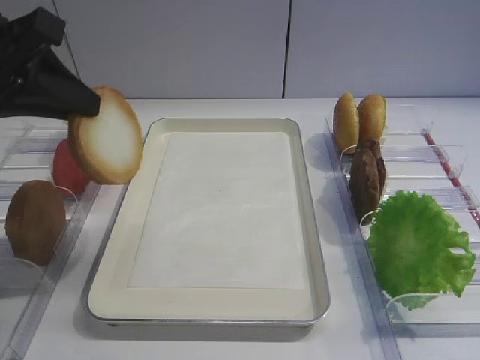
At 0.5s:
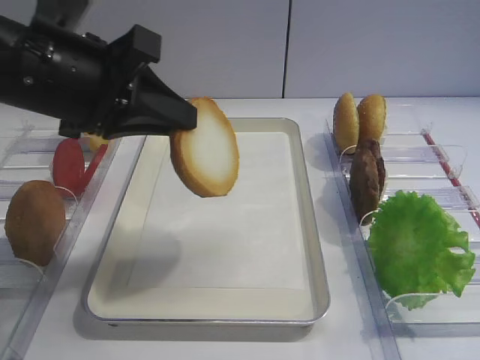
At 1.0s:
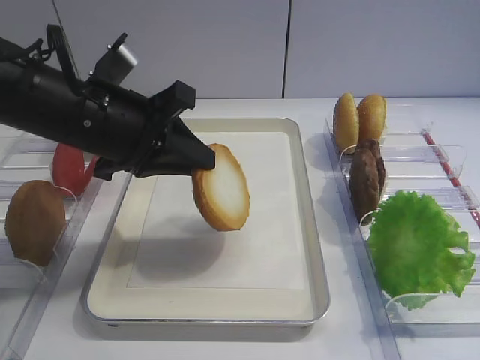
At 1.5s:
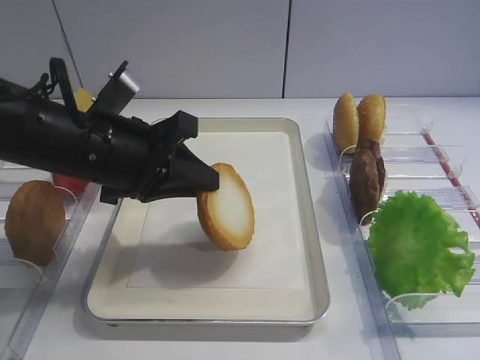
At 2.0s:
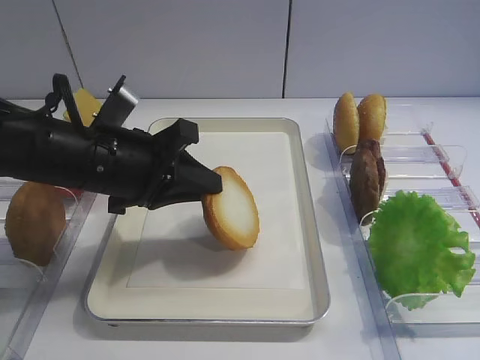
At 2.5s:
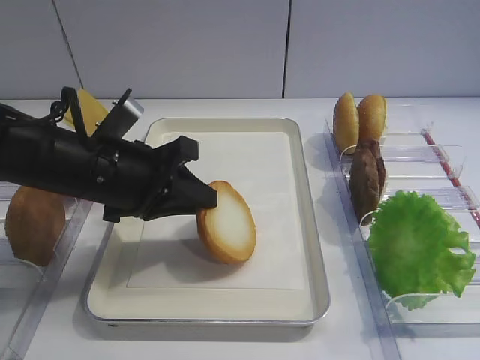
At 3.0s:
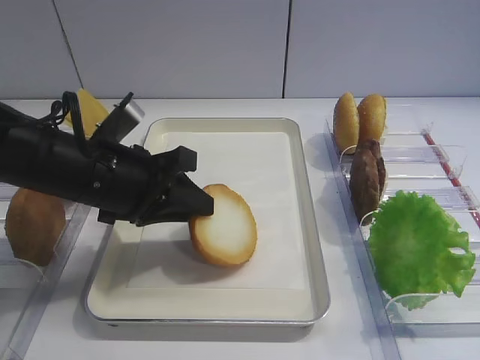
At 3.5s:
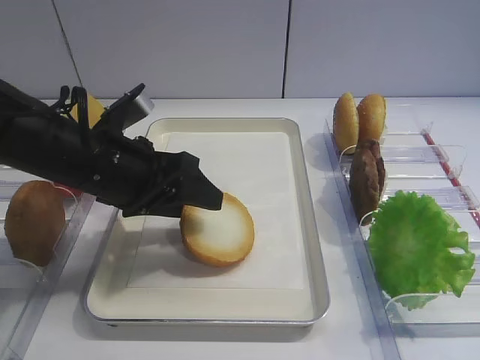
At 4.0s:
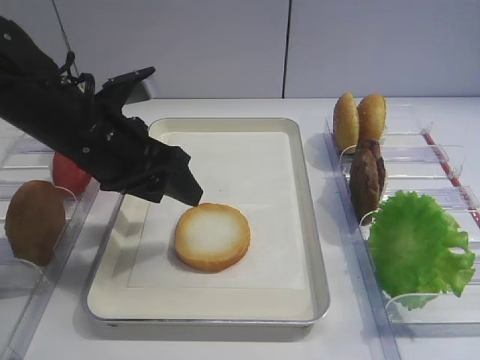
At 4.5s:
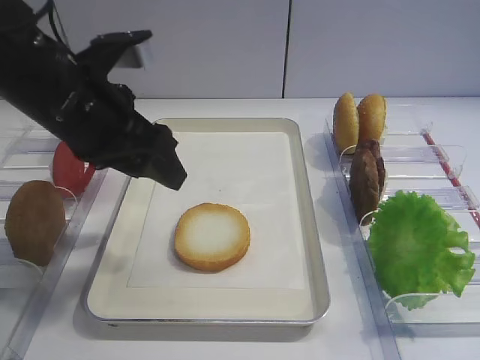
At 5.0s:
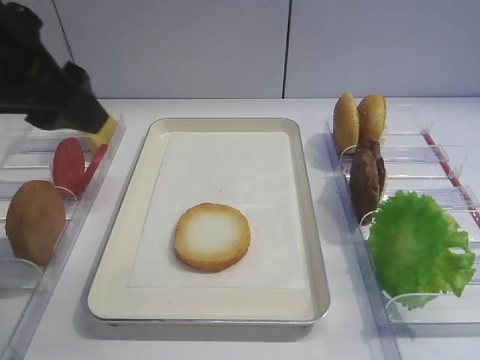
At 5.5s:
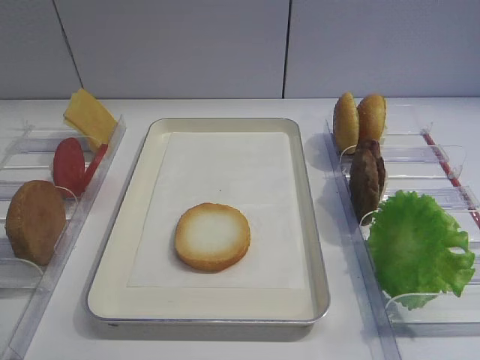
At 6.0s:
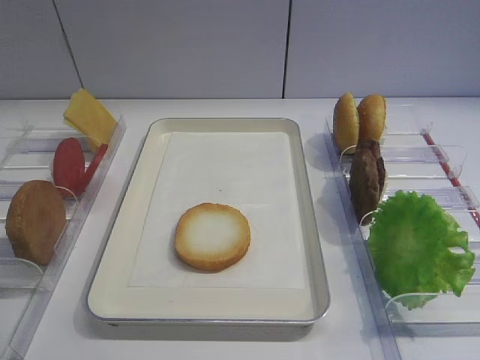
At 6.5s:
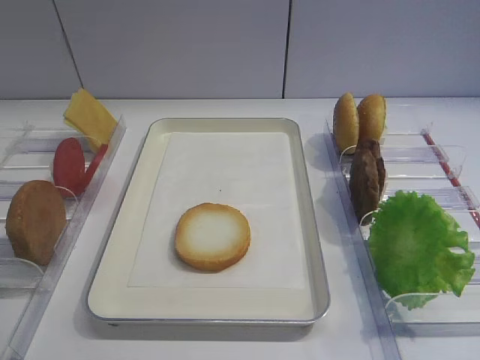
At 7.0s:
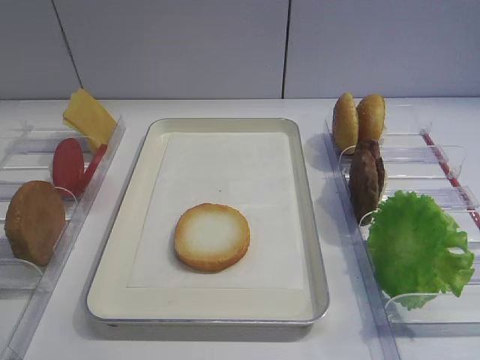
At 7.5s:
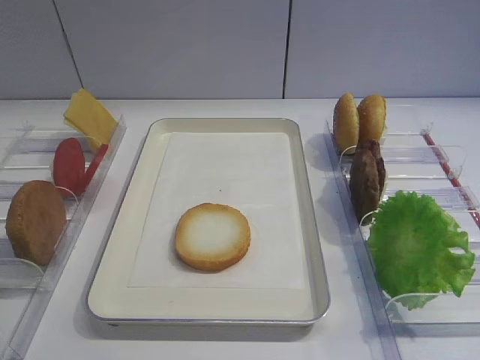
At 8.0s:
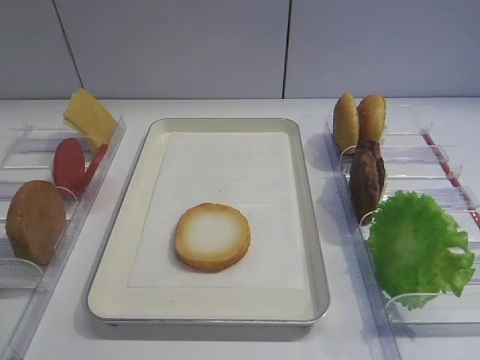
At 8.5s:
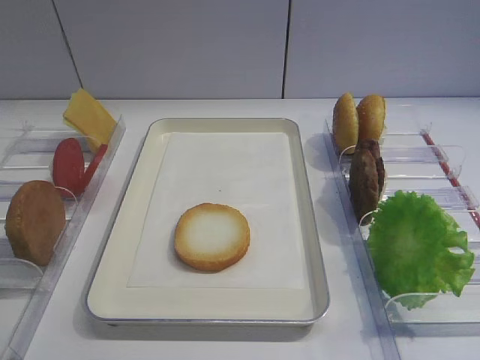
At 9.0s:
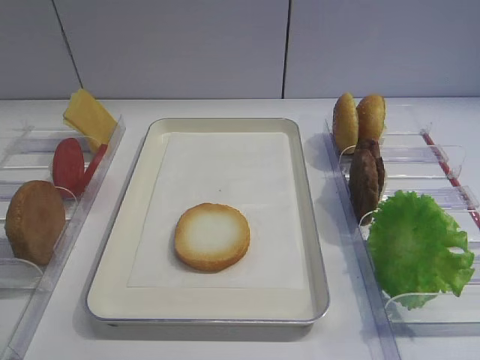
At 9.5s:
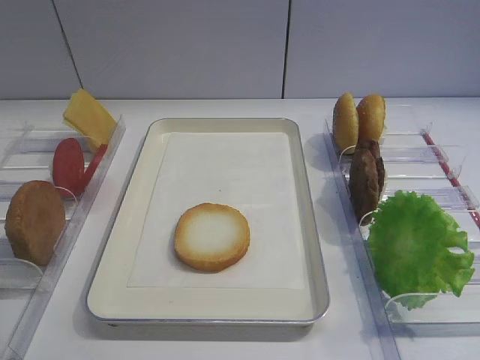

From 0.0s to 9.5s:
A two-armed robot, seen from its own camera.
Step, from 0.0s to 4.0s: Place the bread slice on the tray with the left gripper.
From 0.0s to 2.0s: The left gripper moves downward and to the right, roughly 15 cm.
From 2.0s to 4.0s: The left gripper opens.
From 4.0s to 5.5s: The left gripper shifts roughly 25 cm upward, backward and to the left.

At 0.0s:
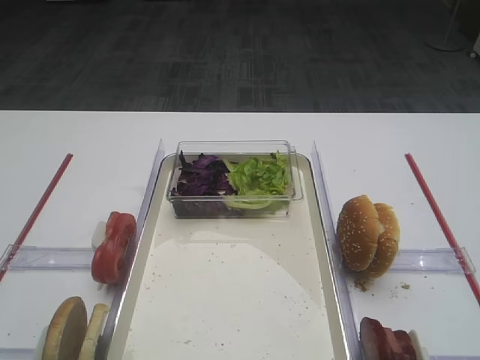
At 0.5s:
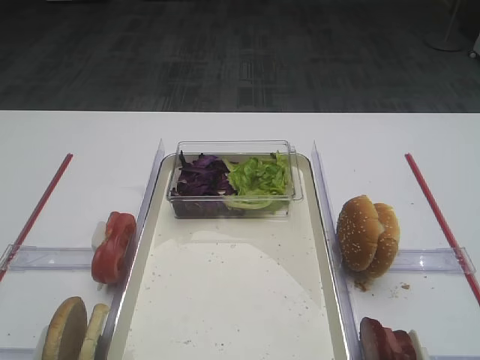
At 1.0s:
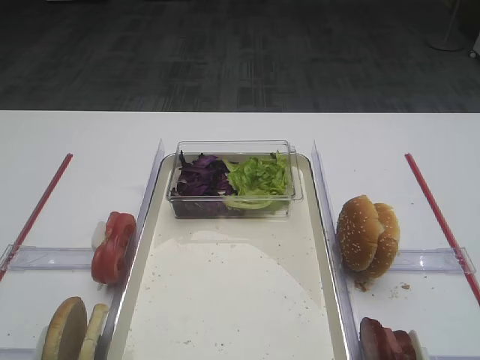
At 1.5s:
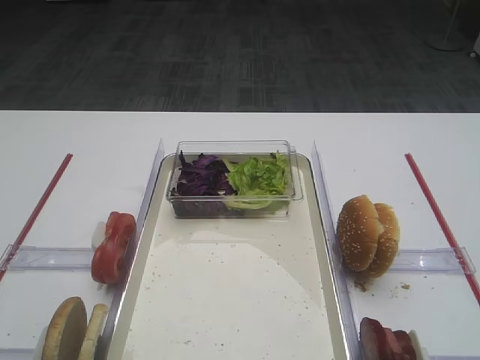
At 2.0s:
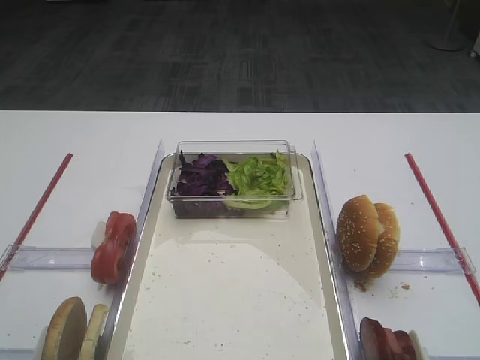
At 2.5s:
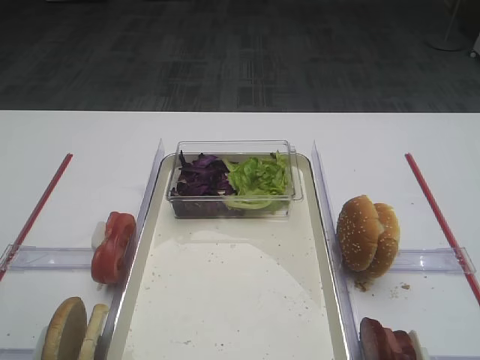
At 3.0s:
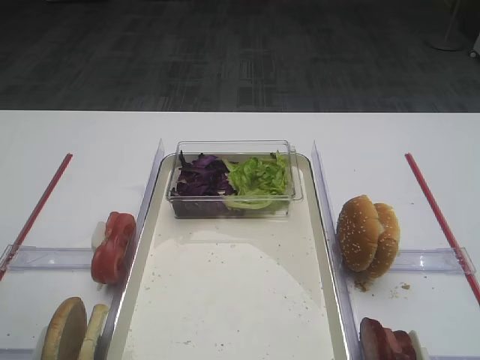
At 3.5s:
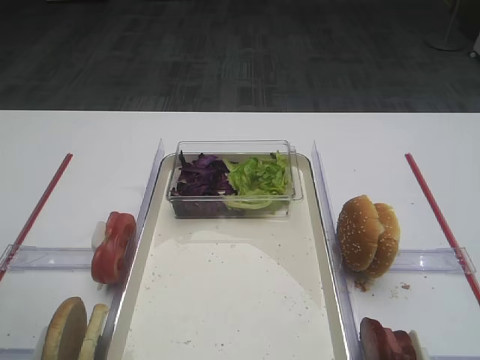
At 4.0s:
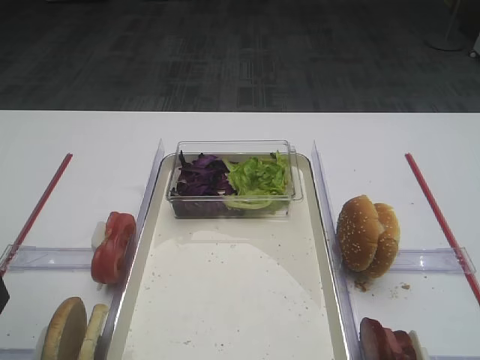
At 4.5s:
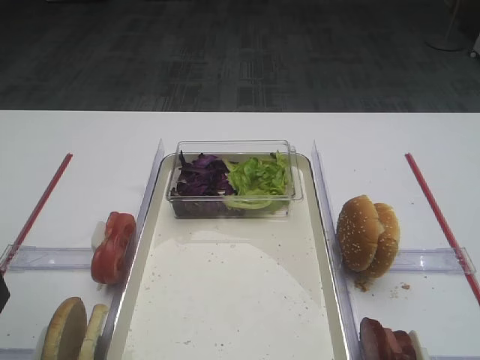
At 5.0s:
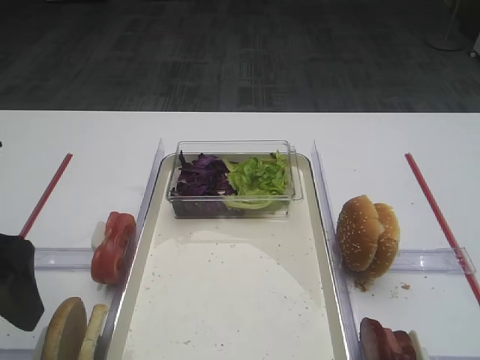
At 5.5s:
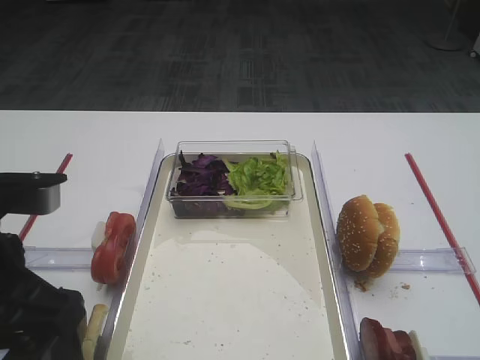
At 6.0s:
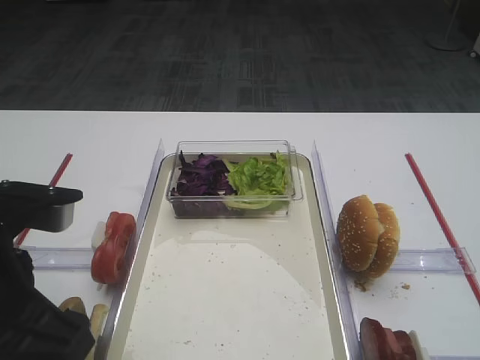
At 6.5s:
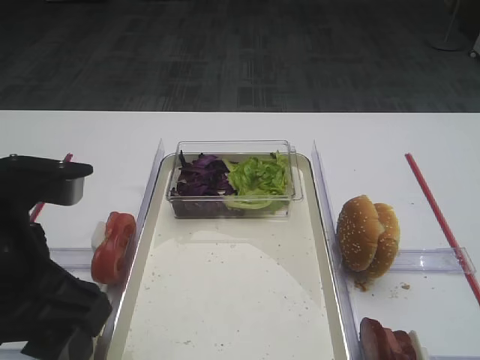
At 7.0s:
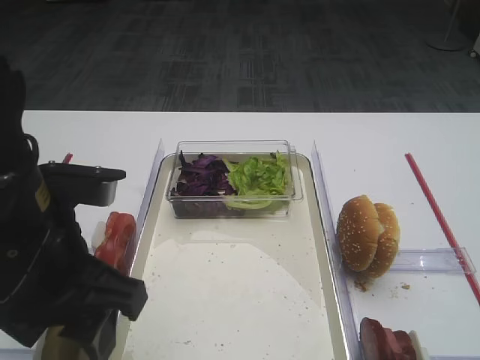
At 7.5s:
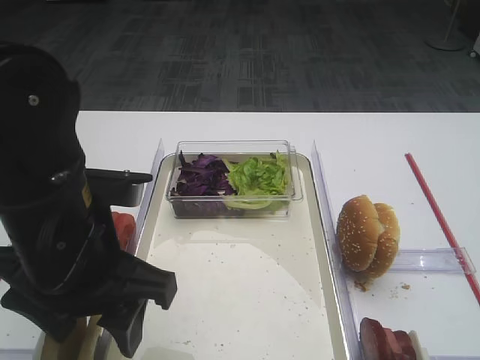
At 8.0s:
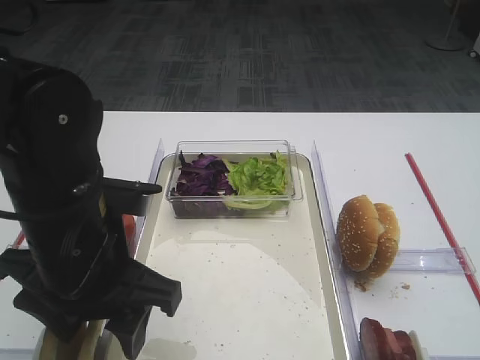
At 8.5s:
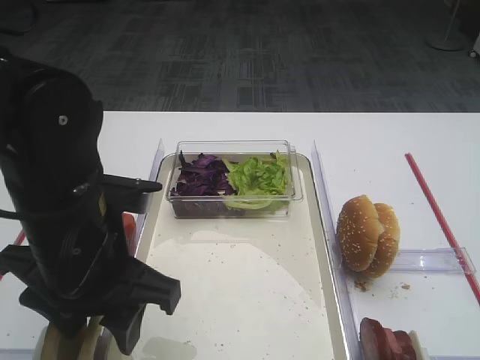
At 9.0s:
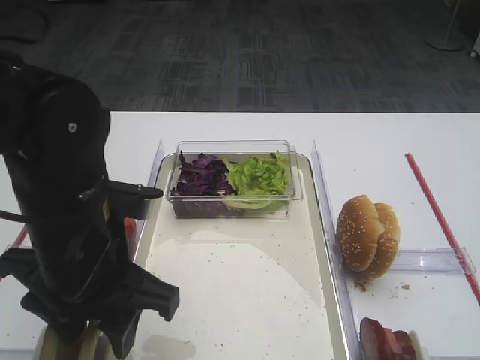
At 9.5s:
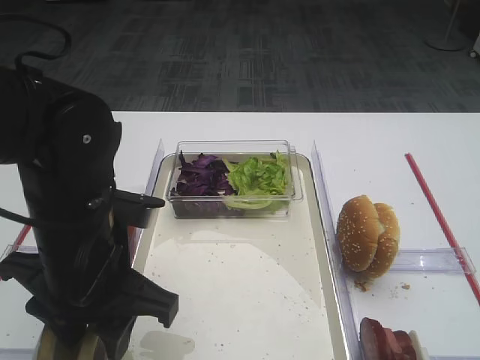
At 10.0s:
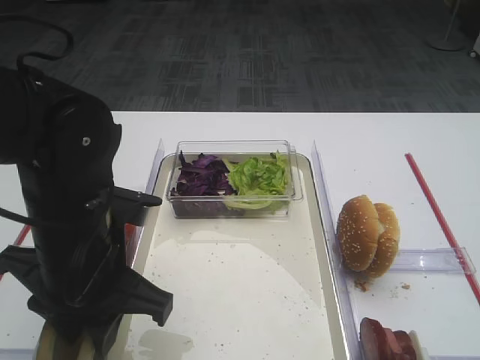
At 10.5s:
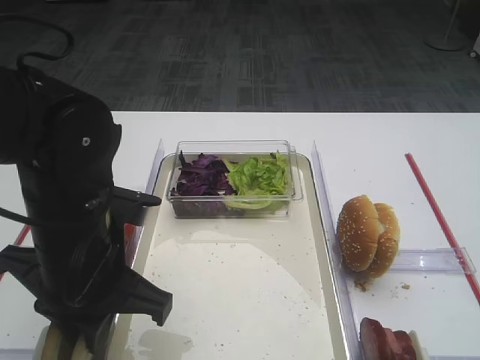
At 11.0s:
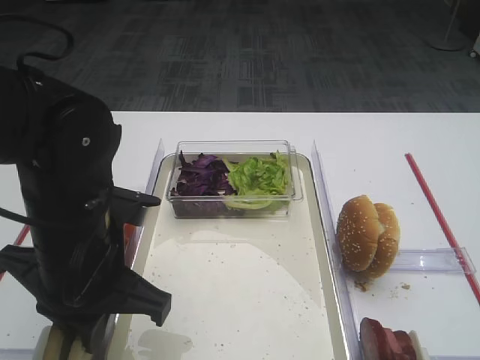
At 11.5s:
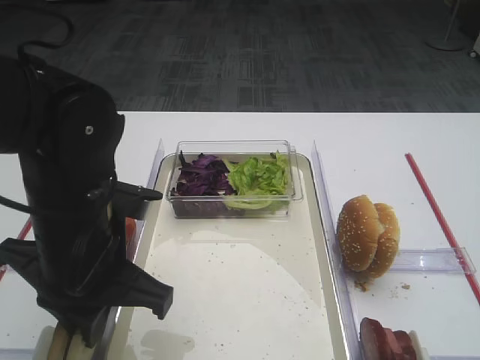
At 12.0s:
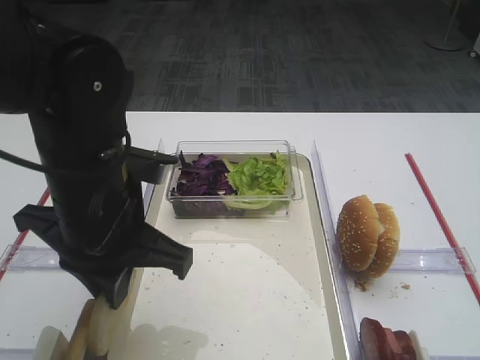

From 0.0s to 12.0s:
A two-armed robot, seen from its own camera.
From 4.0s to 6.0s: The left gripper shifts some 10 cm to the right.
From 6.0s to 8.0s: The left gripper shifts roughly 5 cm forward.
From 8.0s to 10.0s: The left gripper closes.
From 10.0s to 12.0s: The left gripper closes.

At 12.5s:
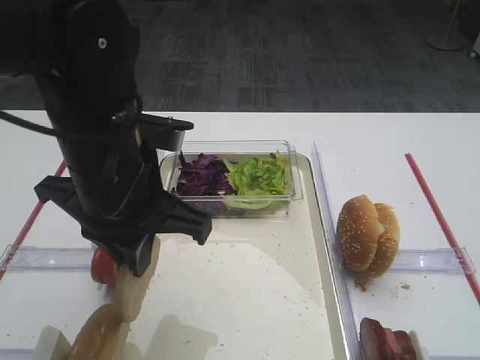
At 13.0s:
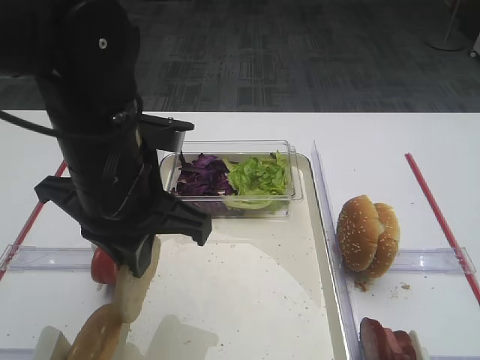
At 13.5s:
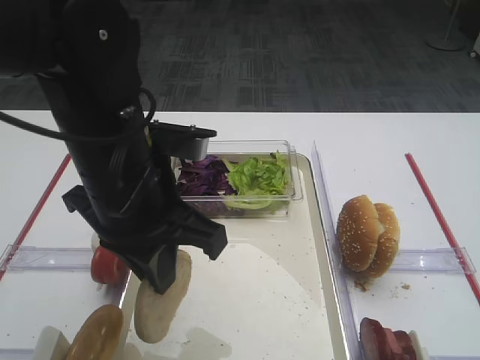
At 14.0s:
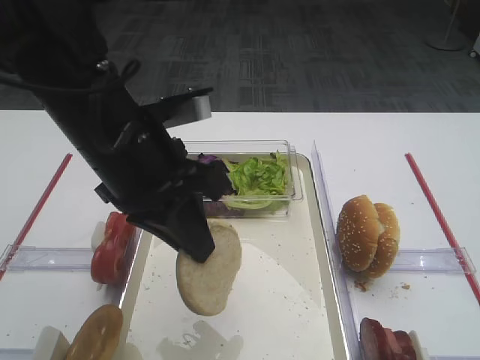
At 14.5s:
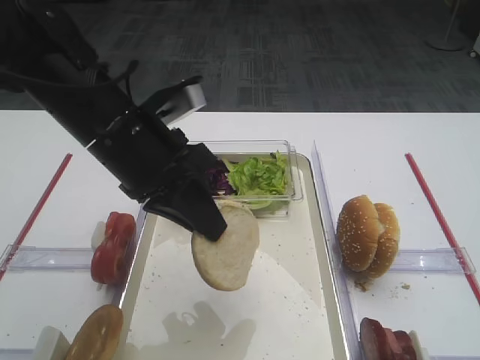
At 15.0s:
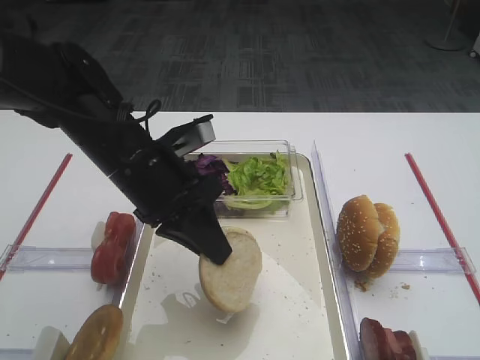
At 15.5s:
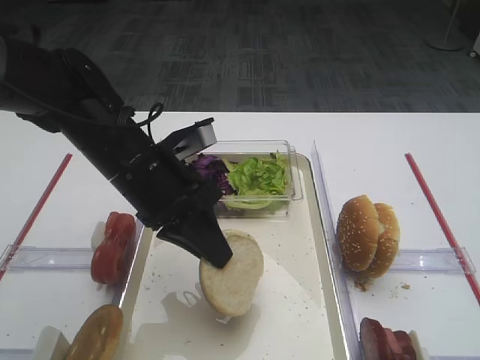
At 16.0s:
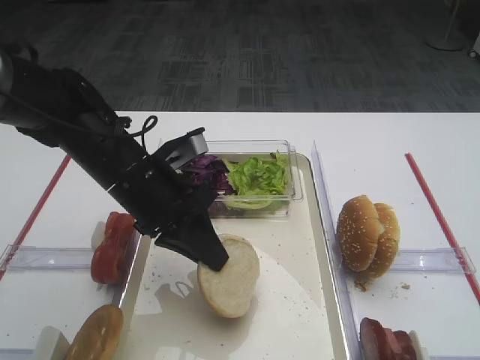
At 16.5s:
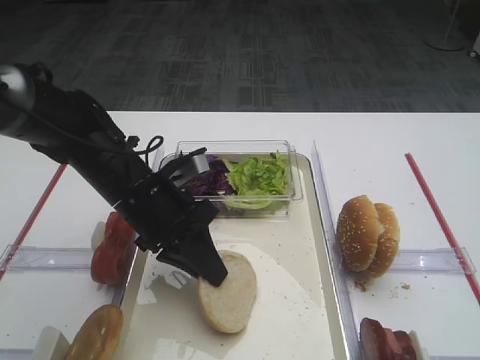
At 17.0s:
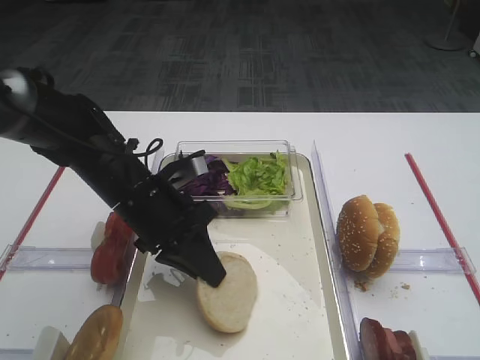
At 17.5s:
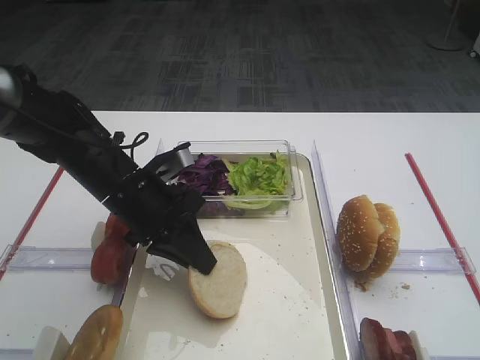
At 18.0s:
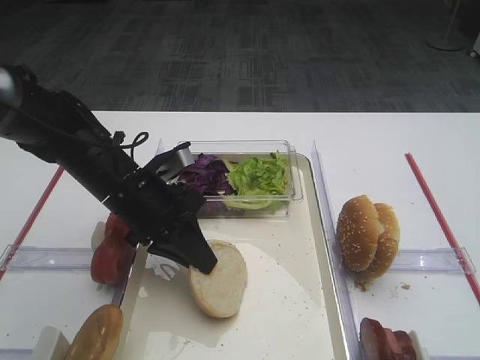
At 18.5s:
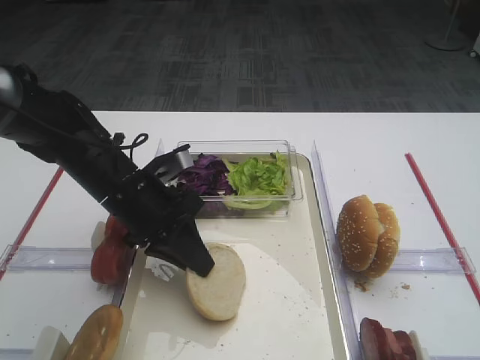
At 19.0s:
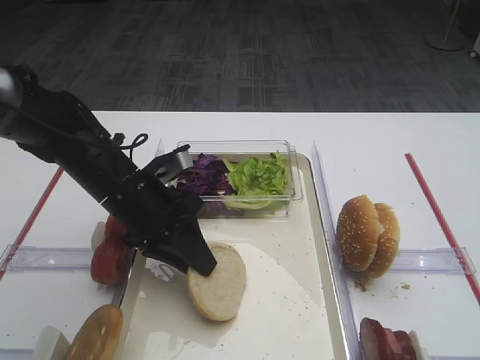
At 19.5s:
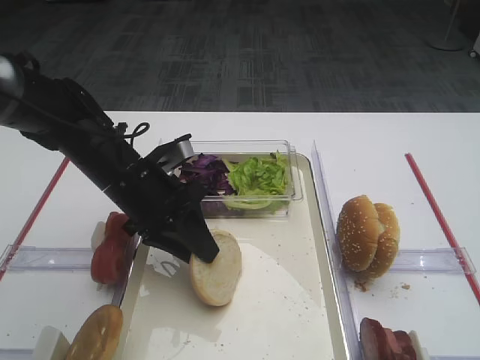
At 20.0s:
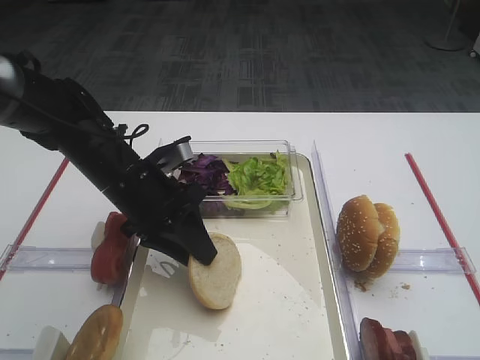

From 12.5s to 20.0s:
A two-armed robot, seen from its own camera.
From 14.5s to 16.5s: The left gripper is displaced downward by some 10 cm.
From 16.5s to 18.0s: The grippers make only small movements.
From 18.0s to 20.0s: Both grippers stay put.
